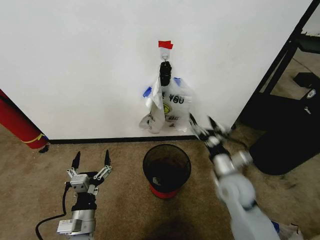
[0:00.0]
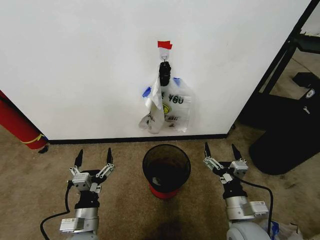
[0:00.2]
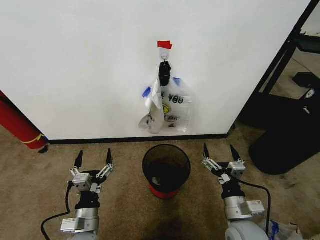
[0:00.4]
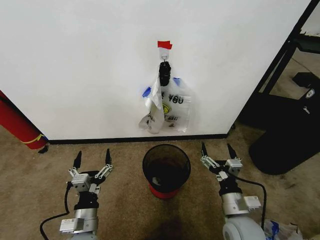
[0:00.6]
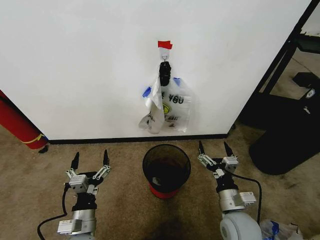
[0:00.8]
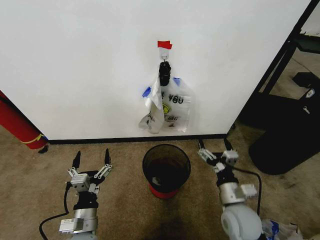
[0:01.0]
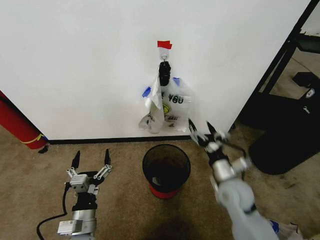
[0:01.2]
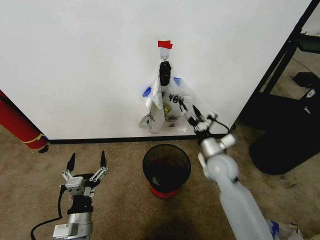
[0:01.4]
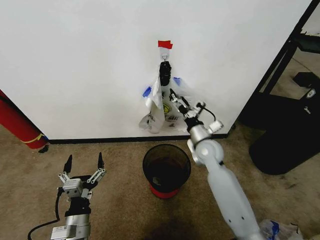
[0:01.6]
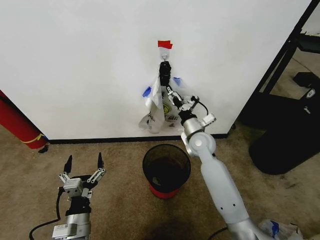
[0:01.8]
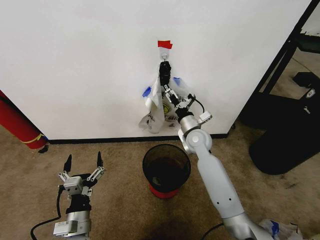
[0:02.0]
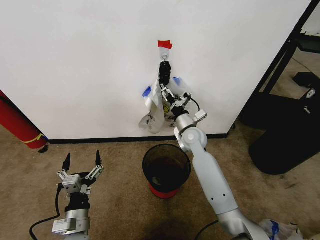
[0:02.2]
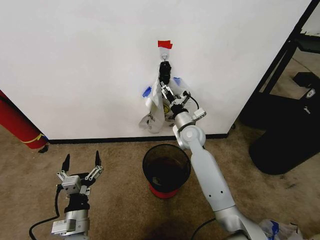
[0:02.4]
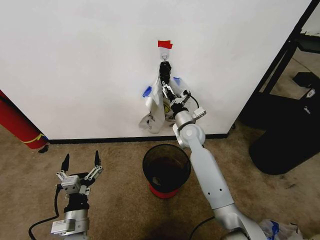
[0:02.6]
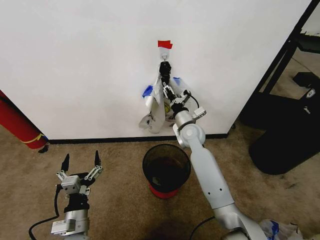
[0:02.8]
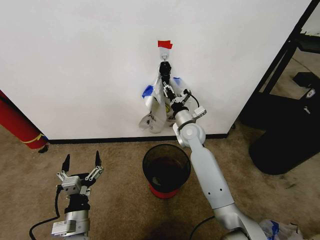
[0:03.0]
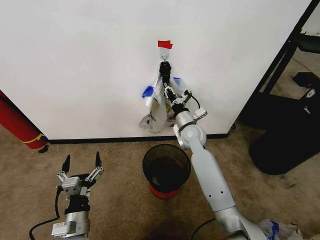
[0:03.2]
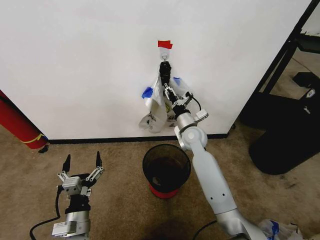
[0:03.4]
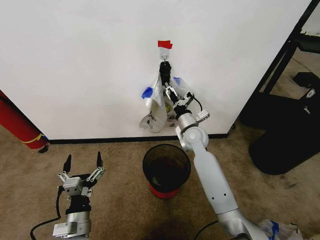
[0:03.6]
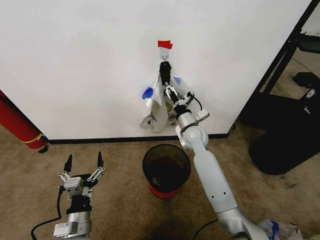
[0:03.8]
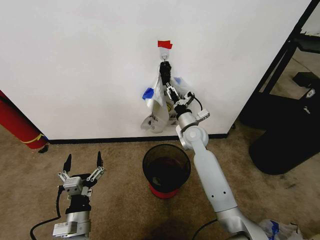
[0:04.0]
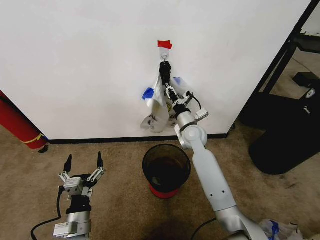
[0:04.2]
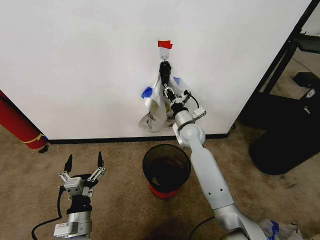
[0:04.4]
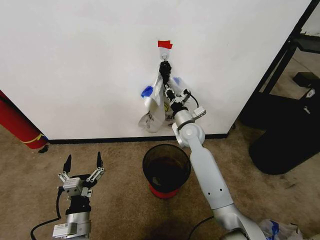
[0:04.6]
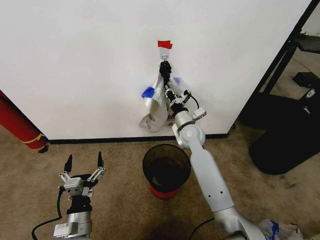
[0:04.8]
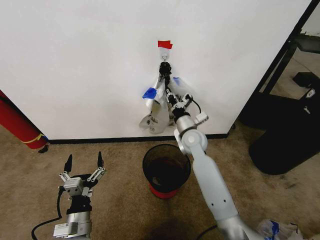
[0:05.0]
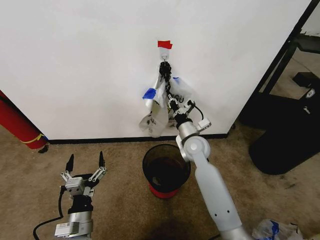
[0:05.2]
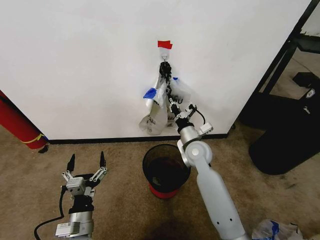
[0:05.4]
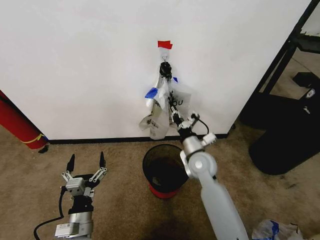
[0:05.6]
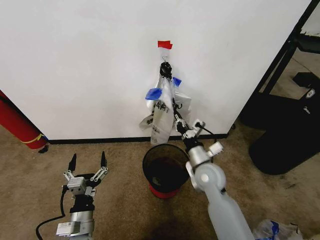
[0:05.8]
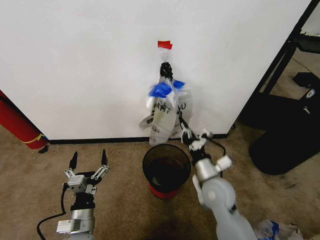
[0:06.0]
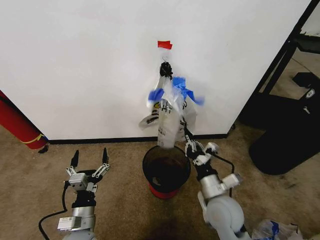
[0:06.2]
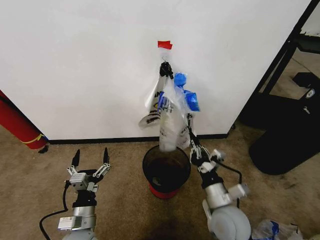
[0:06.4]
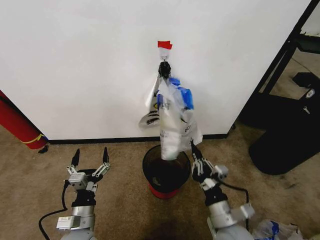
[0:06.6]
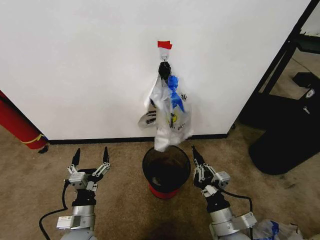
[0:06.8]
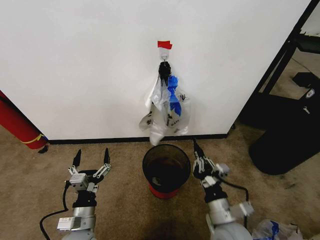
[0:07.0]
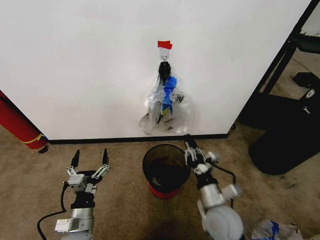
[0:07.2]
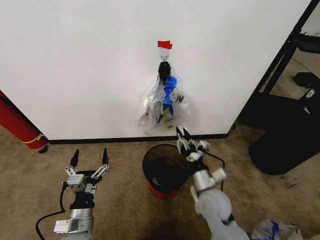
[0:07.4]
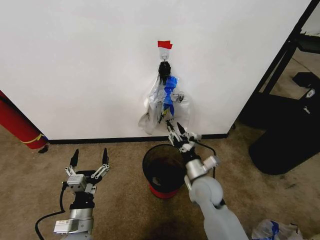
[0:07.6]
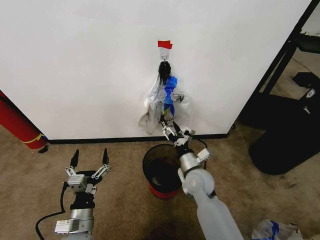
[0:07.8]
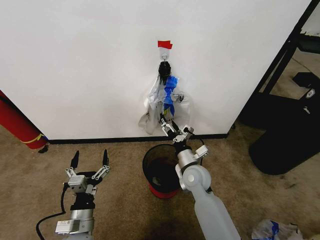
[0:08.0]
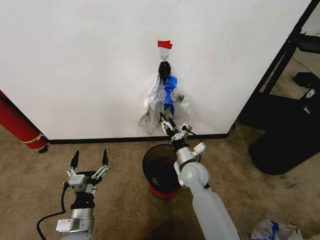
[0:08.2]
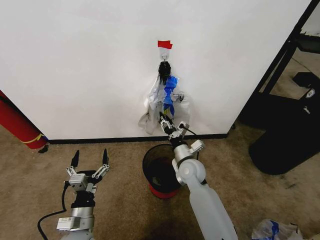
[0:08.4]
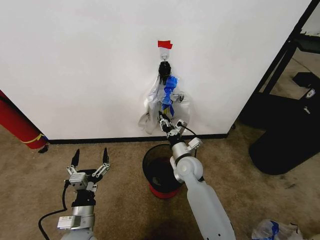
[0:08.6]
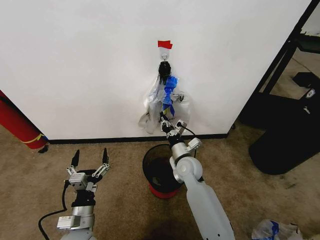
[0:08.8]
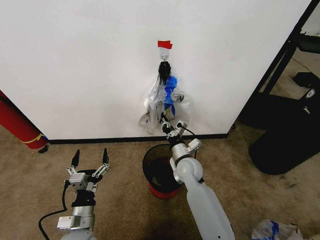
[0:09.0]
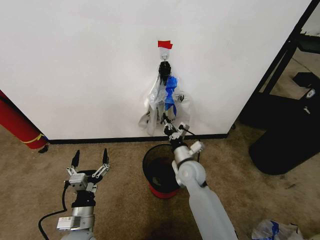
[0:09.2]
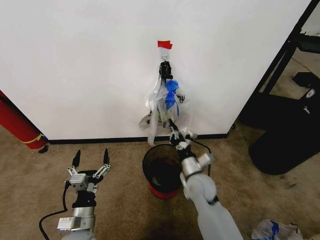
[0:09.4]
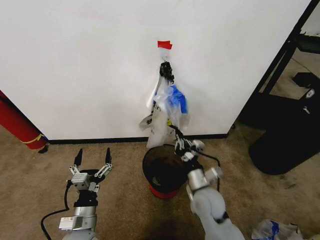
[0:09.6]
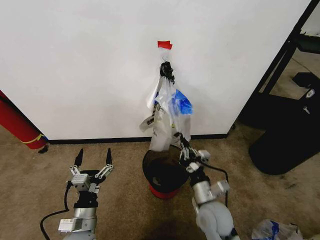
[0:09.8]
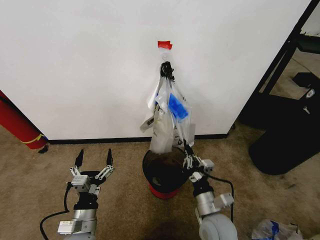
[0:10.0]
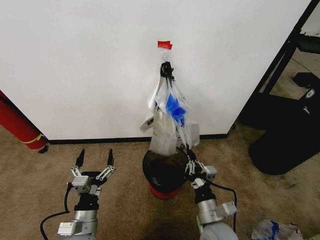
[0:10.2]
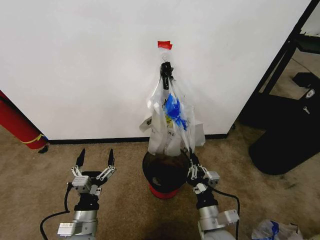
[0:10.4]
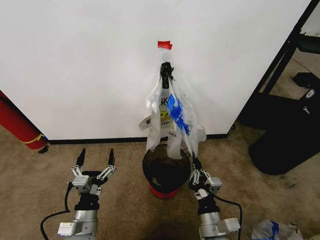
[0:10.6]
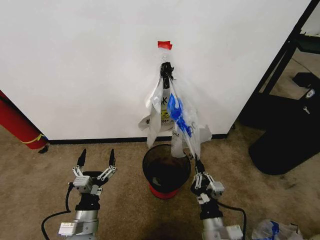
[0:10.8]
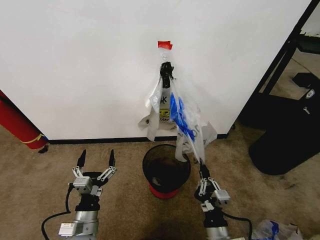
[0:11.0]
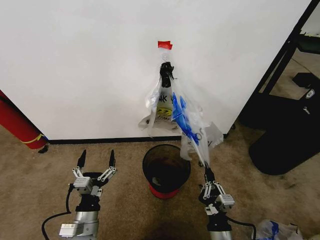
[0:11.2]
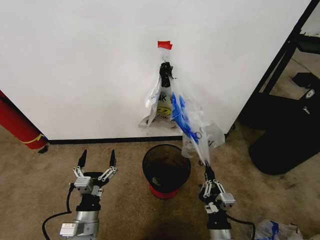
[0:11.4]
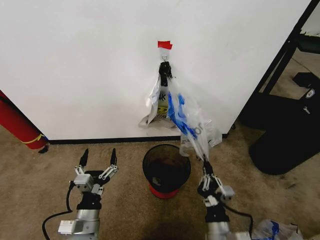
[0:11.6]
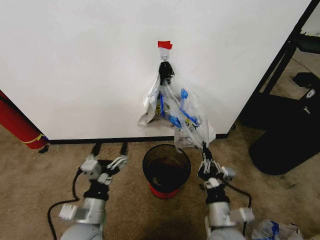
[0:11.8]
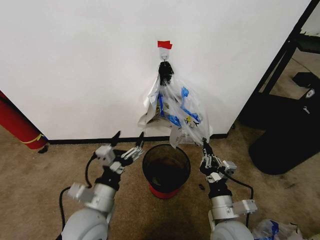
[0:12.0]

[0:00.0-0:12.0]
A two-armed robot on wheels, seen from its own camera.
Task of the whole recording: Pick up the garbage bag from the wall and place it over the trash bin.
0:01.6 to 0:03.0: The right gripper shifts roughly 10 cm forward and to the left, and closes its fingers.
0:04.4 to 0:06.0: The right gripper shifts about 20 cm backward.
0:06.0 to 0:07.6: The right gripper goes backward and returns, some 15 cm each way, and opens its fingers.
0:07.6 to 0:09.0: The right gripper shifts approximately 10 cm forward, and closes.
0:09.0 to 0:10.4: The right gripper goes about 25 cm backward.
0:10.4 to 0:12.0: The left gripper is displaced upward by about 10 cm. The right gripper shifts by about 5 cm.

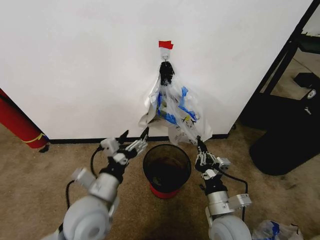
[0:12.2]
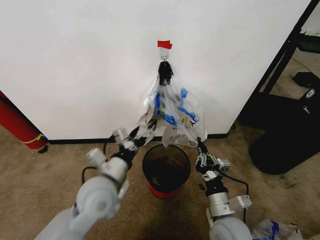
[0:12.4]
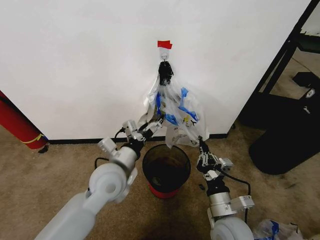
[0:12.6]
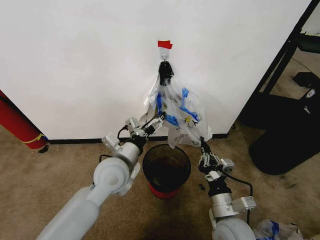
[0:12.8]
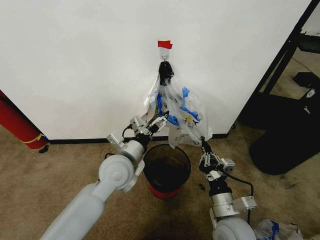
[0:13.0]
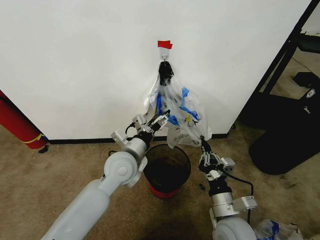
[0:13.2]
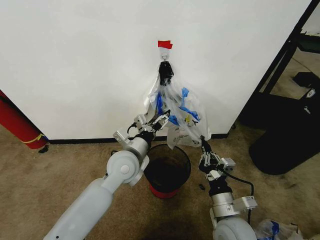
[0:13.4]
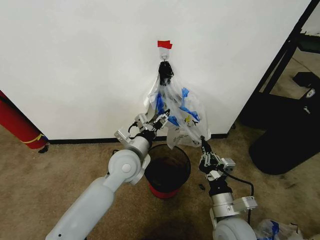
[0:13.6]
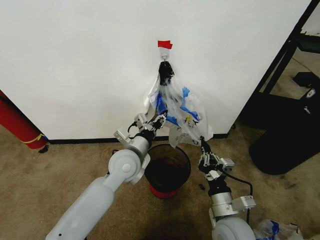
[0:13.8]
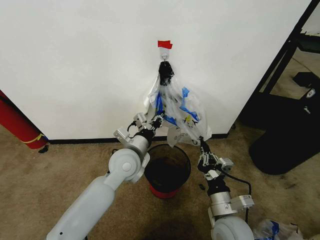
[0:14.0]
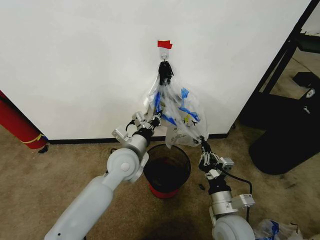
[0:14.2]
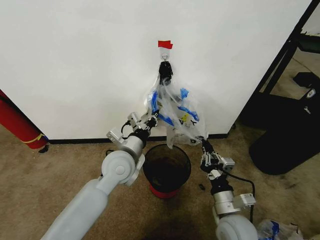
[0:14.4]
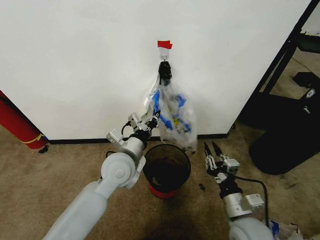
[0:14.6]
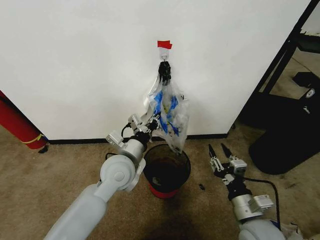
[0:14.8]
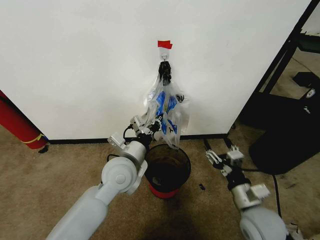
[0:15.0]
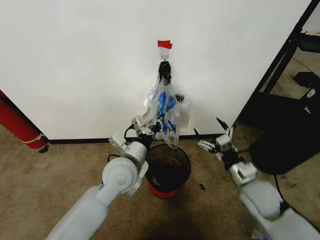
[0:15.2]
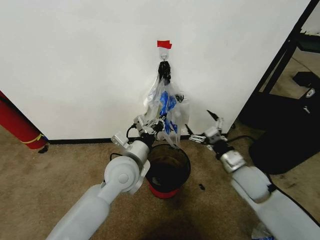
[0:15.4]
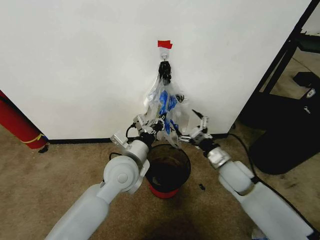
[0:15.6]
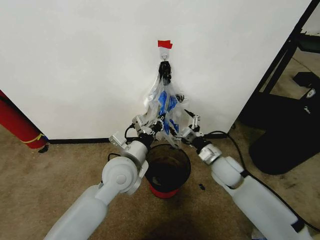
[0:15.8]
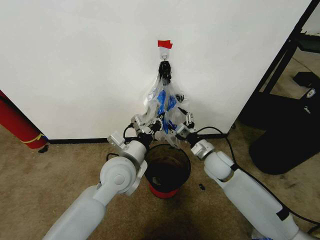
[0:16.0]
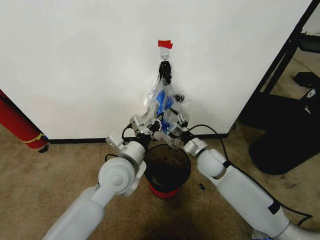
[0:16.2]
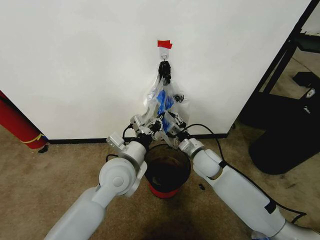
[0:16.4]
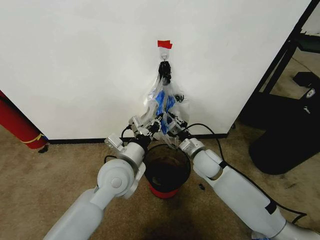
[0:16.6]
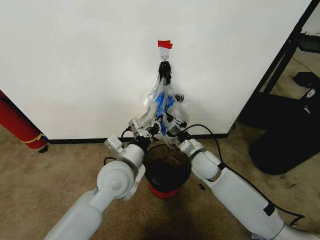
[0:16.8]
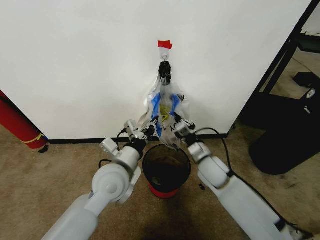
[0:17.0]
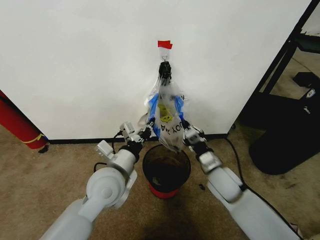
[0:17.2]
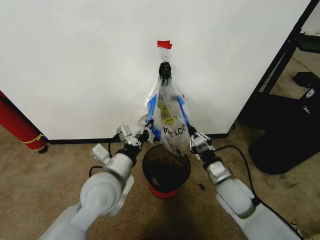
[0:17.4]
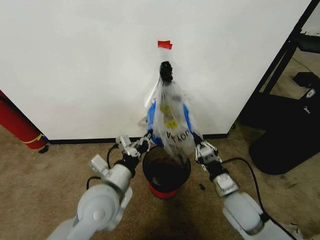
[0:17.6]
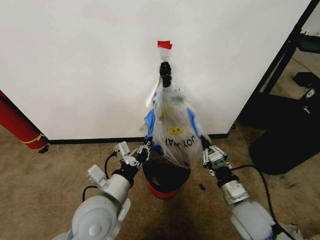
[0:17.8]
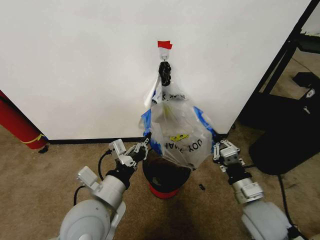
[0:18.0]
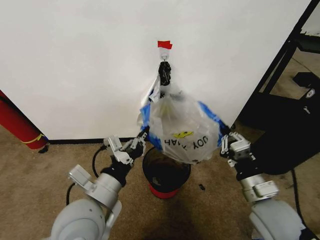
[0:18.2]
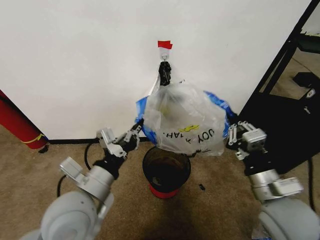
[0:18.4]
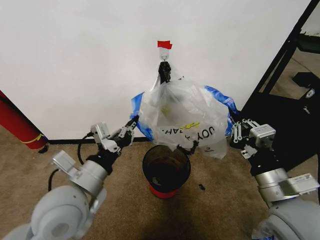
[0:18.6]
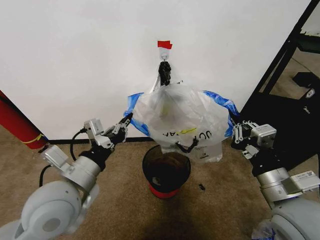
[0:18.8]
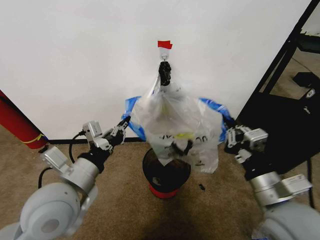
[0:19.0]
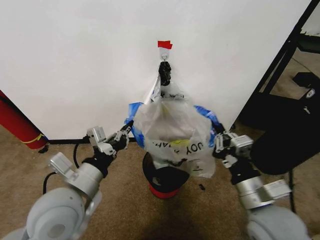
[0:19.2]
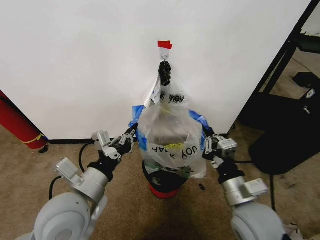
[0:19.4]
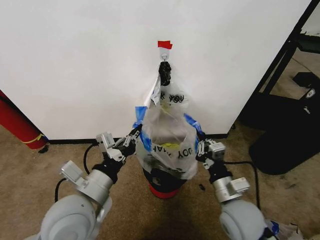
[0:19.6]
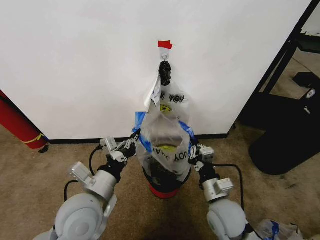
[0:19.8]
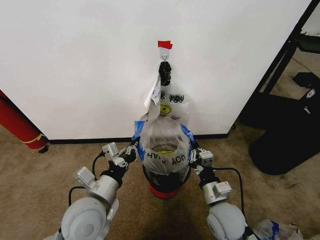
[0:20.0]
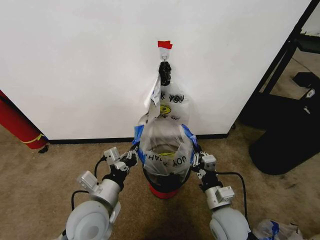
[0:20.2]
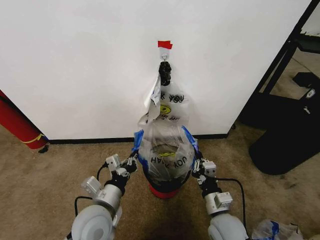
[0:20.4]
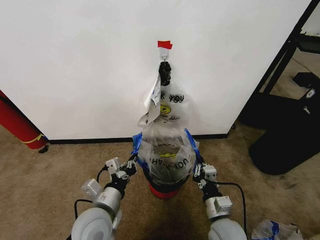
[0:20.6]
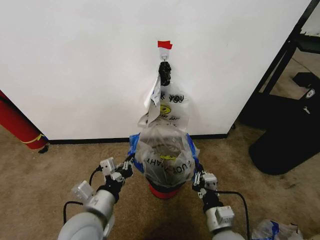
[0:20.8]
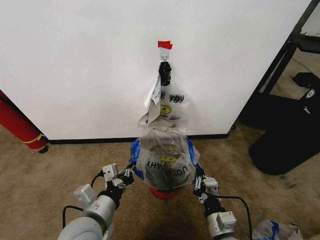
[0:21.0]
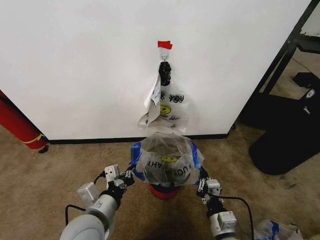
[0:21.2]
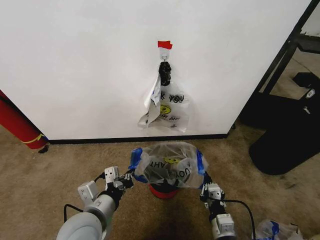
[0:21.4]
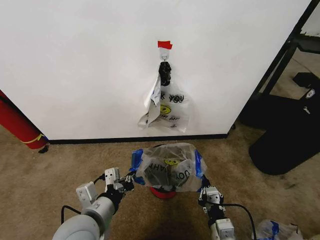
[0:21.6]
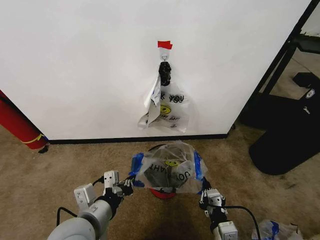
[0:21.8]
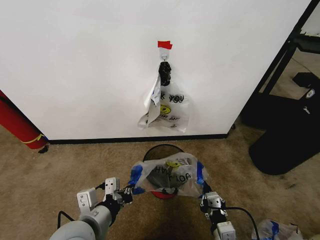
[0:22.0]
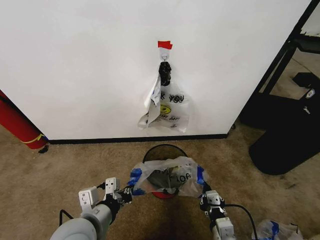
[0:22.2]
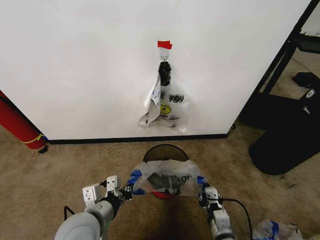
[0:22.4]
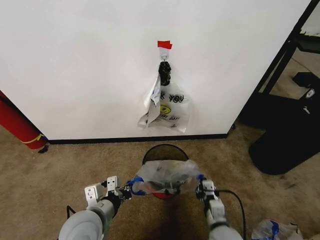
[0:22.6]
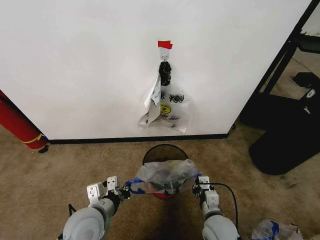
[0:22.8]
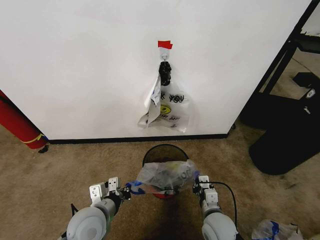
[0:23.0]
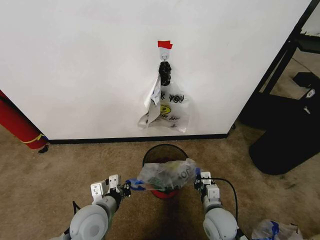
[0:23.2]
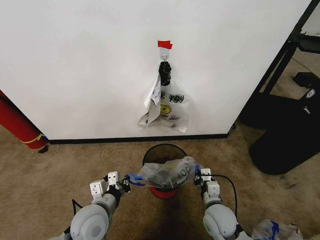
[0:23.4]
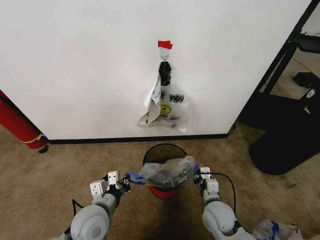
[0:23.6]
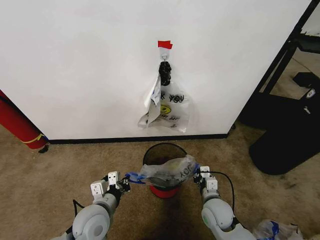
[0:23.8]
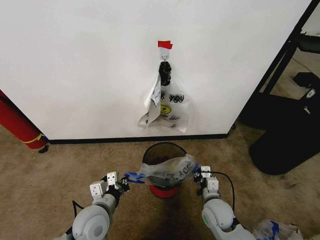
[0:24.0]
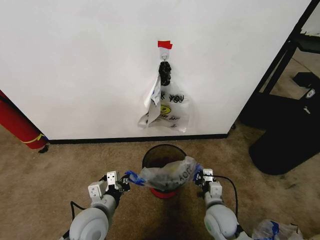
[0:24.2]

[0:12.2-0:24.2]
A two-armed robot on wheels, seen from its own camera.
Task of the whole recording: Pick up the garbage bag from the wall and place it over the trash bin.
0:12.2 to 0:13.8: The left gripper goes about 15 cm forward and to the right, and closes.
0:13.8 to 0:15.2: The left gripper closes up, while the right gripper heads to the right and forward, covering approximately 10 cm, and opens.
0:15.2 to 0:16.6: The right gripper heads forward and to the left, covering approximately 20 cm, and closes.
0:16.6 to 0:18.2: The right gripper shifts about 20 cm backward and to the right. Meanwhile the left gripper is displaced backward by some 10 cm.
0:18.2 to 0:19.8: The right gripper heads to the left and downward, covering some 10 cm.
0:19.8 to 0:21.2: The right gripper shifts approximately 10 cm backward and downward, while the left gripper ends up roughly 5 cm from where it was.
0:21.2 to 0:22.6: There are only small adjustments of the grippers.
0:22.6 to 0:24.2: The right gripper heads forward, covering approximately 5 cm.
